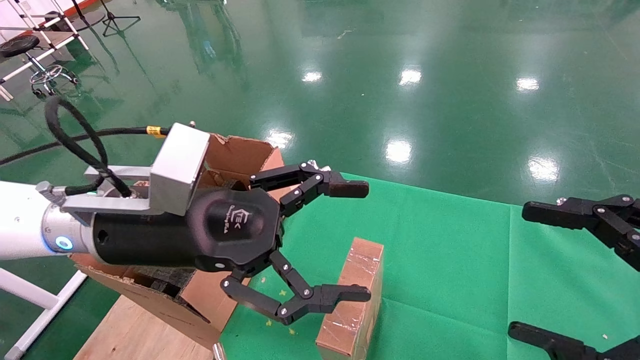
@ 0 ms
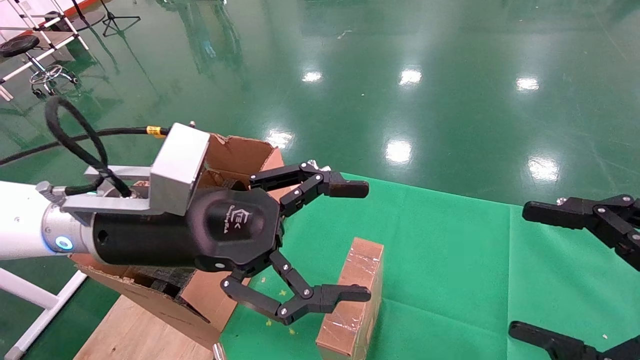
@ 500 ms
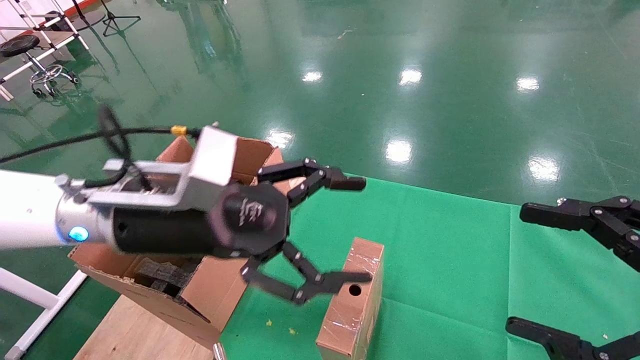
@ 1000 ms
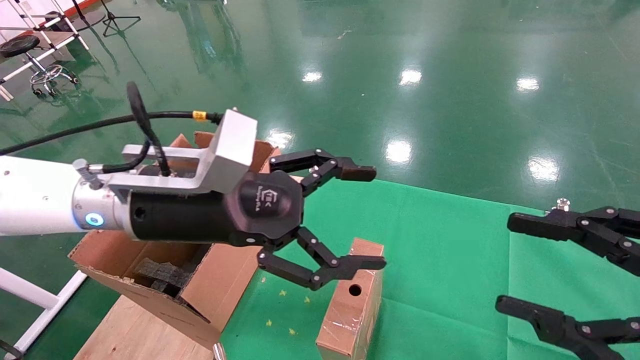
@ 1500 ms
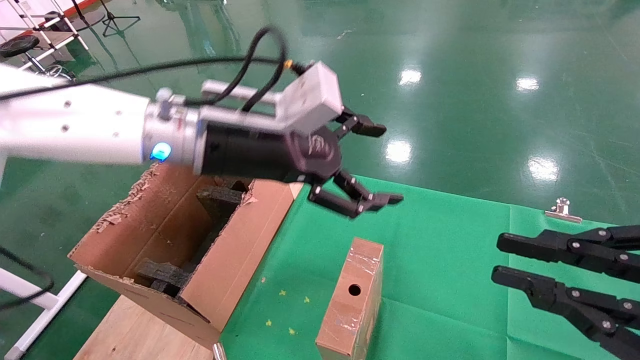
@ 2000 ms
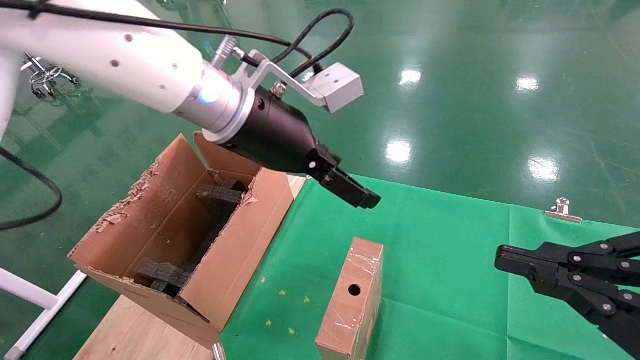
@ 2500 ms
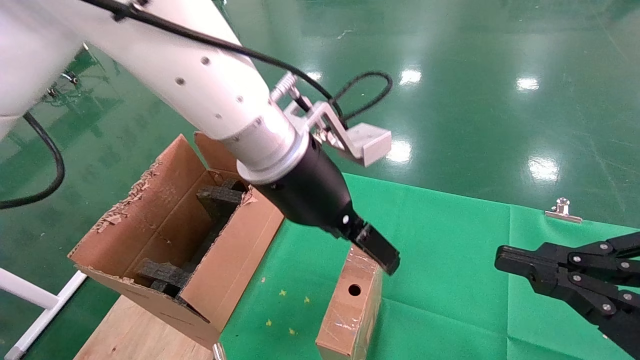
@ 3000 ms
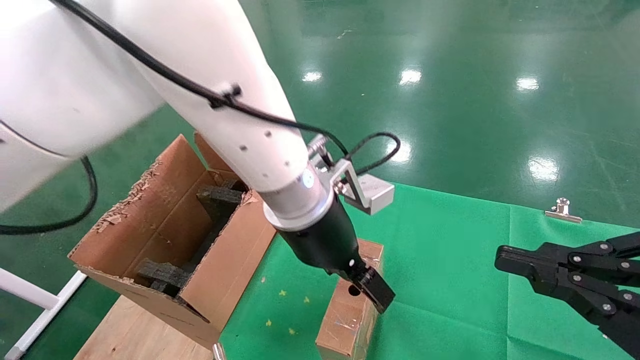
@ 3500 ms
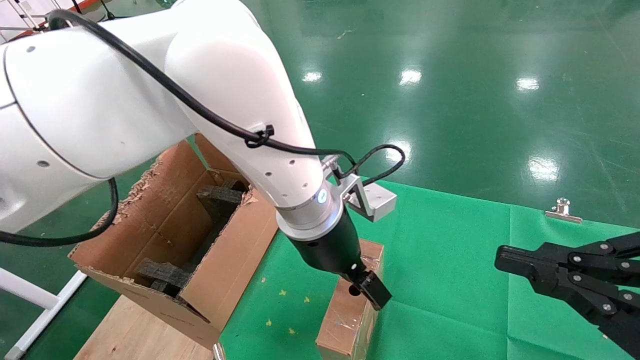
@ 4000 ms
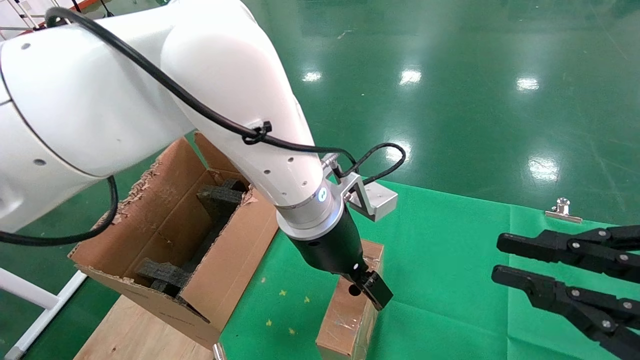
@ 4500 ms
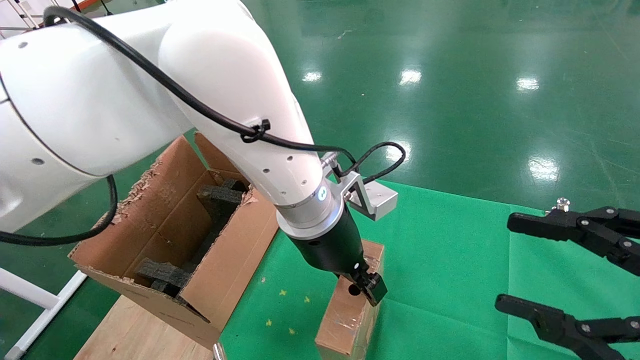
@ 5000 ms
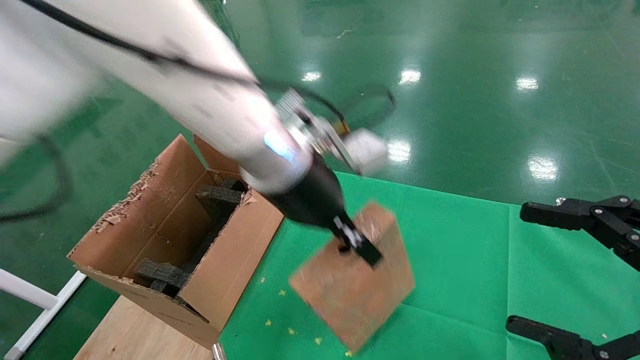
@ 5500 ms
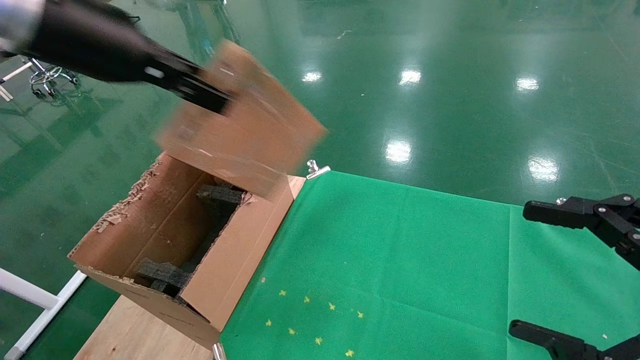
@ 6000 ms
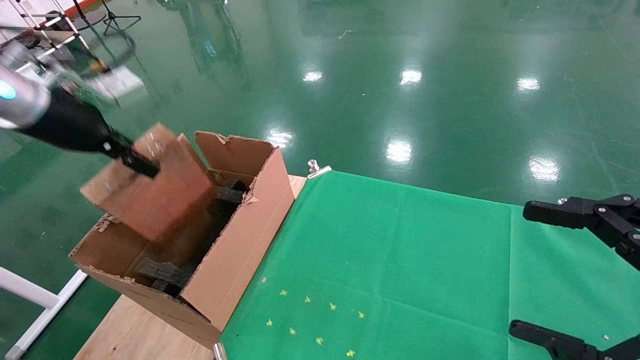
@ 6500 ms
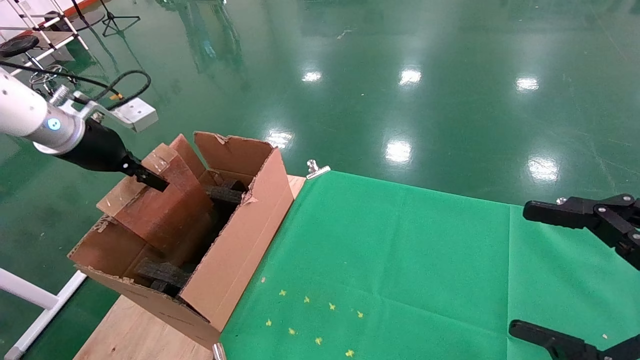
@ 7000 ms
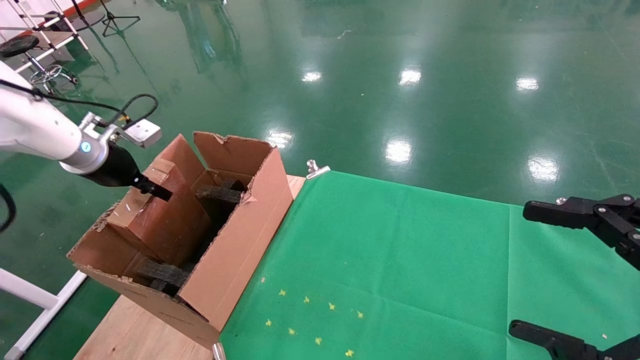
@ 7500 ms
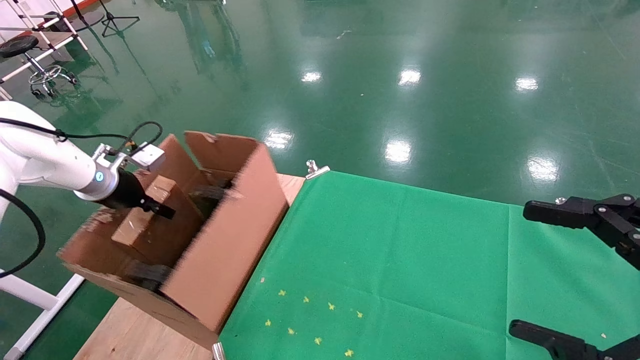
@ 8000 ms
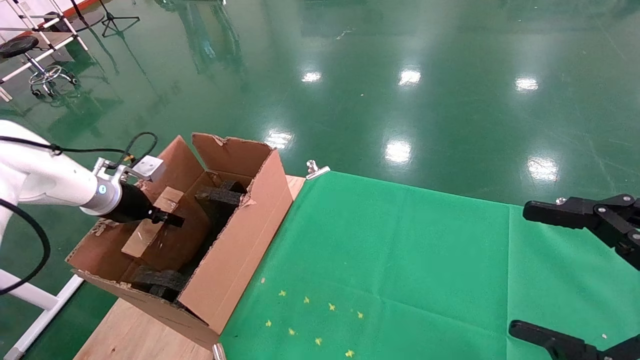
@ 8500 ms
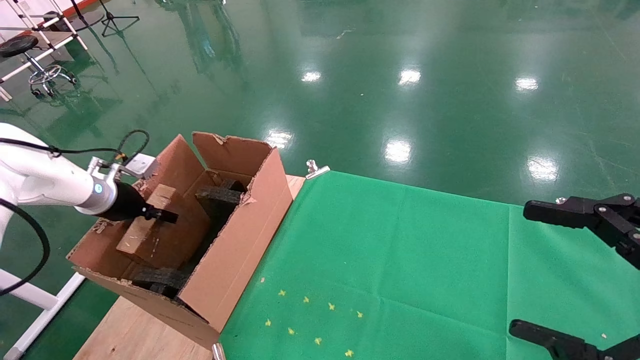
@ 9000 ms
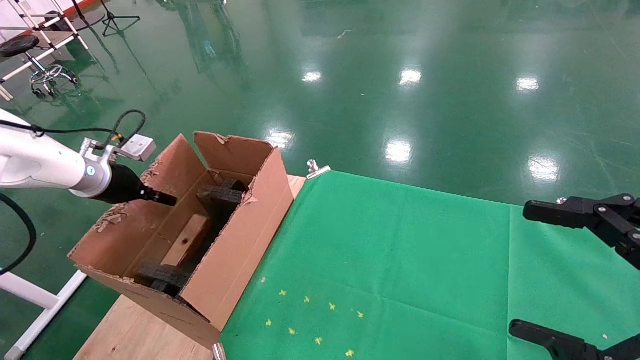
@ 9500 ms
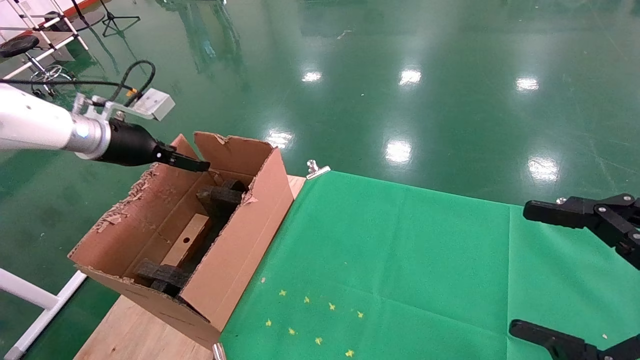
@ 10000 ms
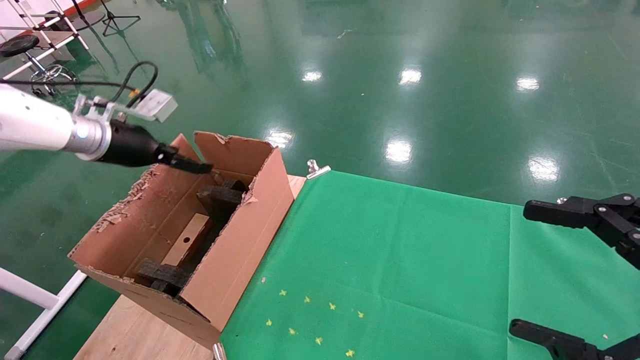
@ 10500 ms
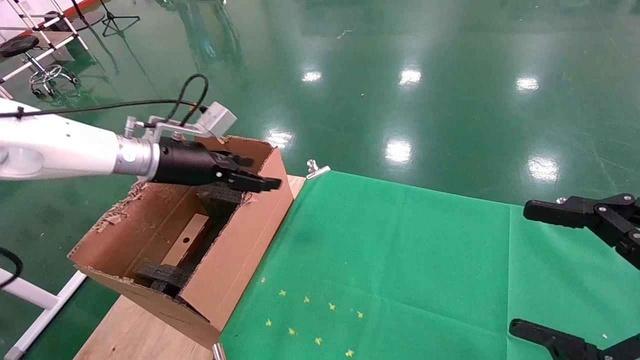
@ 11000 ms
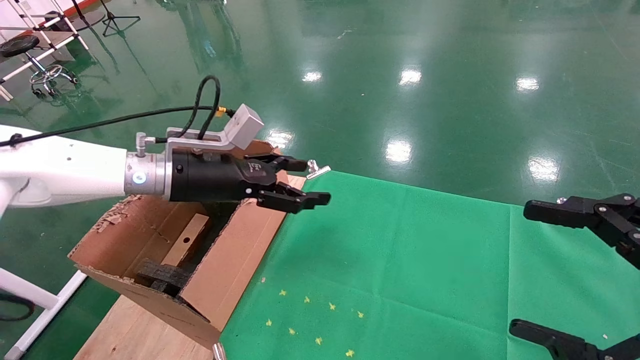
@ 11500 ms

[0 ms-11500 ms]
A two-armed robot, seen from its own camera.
Task of the whole recording: using a robotic arm to pick up a cardboard box and palace it the carton.
Step, 1000 ms to 5000 ms: Pick up the mouse and the power cord paper box.
Step, 5500 ms to 10000 ms: Place the mouse and the power cord paper box into the container.
0 ms to 2000 ms: The right gripper closes up; the left gripper shifts roughly 10 cm forward and upward.
2000 ms to 4000 ms: The left gripper is displaced to the right and downward by about 15 cm.
4000 ms to 6000 ms: The left gripper moves to the left and upward, about 30 cm, and closes its fingers; the right gripper opens.
6000 ms to 7500 ms: The left gripper moves to the left, downward and forward, approximately 30 cm.
7500 ms to 9500 ms: The left gripper opens its fingers.
9500 ms to 11500 ms: The left gripper shifts roughly 20 cm to the right, and opens up.

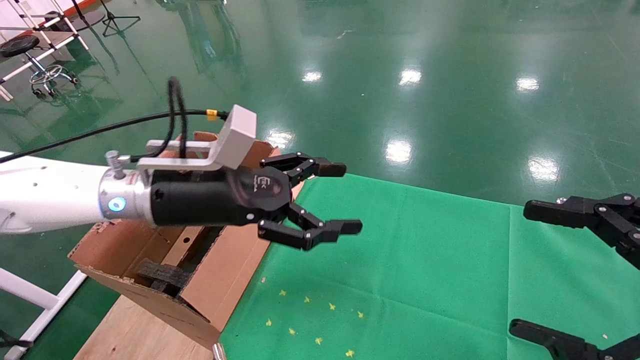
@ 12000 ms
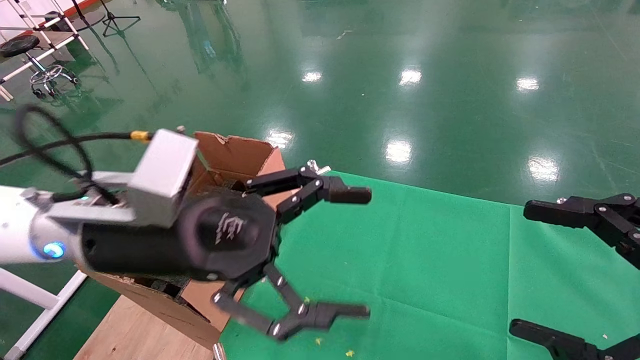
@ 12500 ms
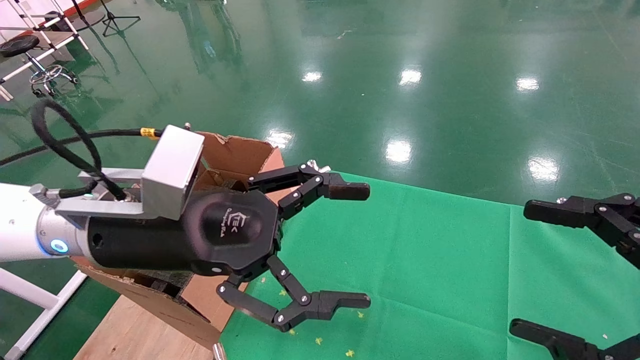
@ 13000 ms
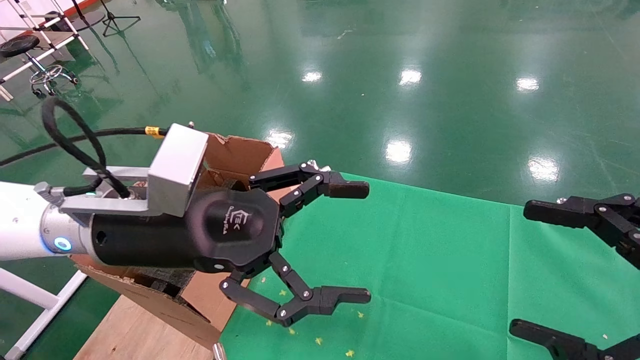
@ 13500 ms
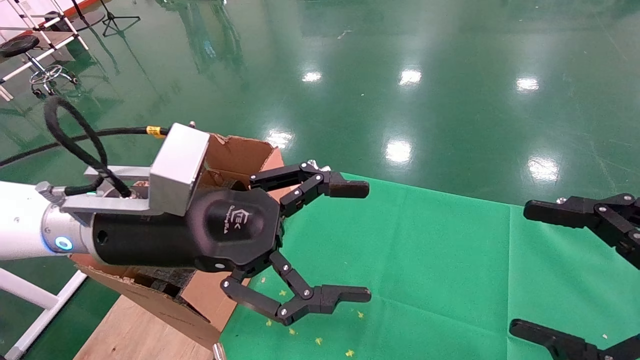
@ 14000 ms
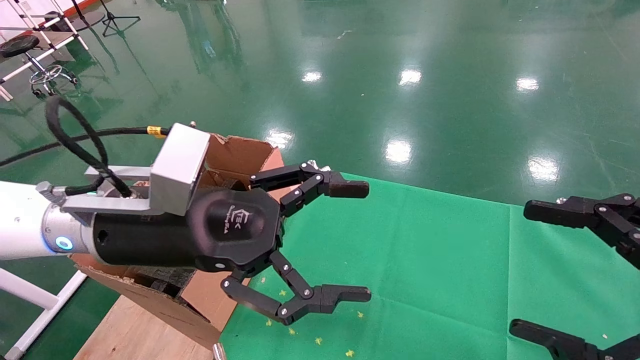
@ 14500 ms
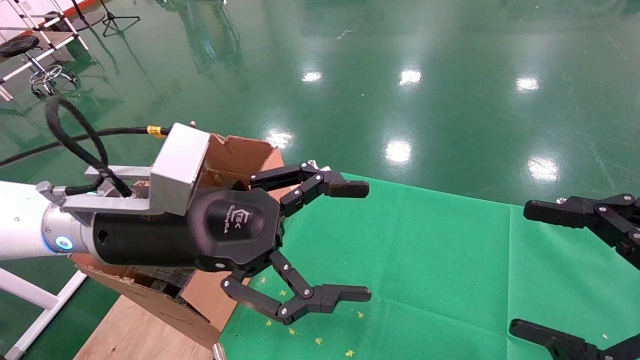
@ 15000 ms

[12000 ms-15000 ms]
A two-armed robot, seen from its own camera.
Task of the whole recording: using a robotic arm to pick up a cardboard box and palace it the carton.
12000 ms to 13500 ms: The left gripper shifts approximately 5 cm backward.
13500 ms to 15000 ms: Neither gripper changes place.
